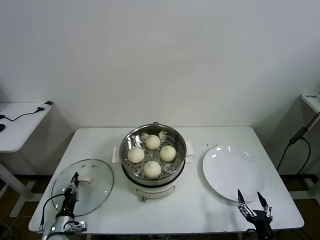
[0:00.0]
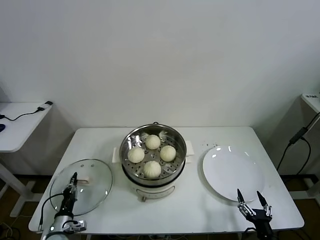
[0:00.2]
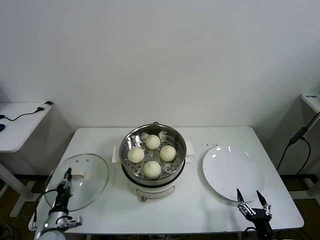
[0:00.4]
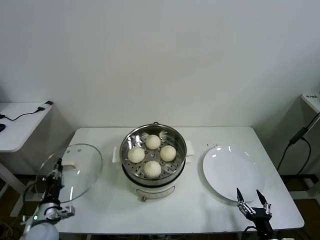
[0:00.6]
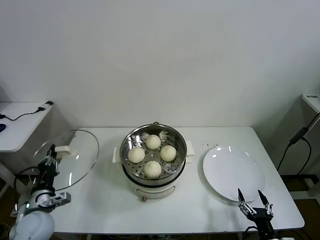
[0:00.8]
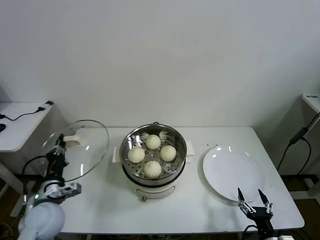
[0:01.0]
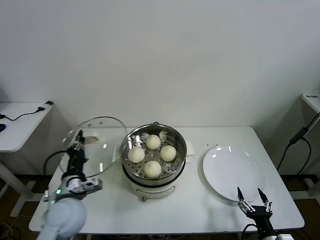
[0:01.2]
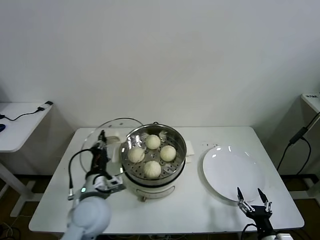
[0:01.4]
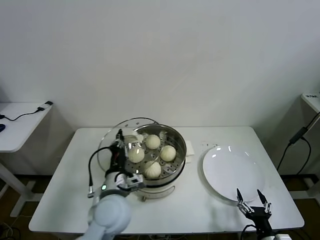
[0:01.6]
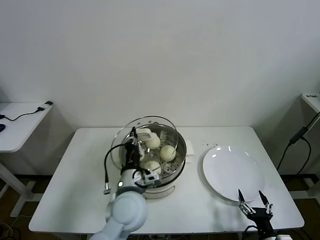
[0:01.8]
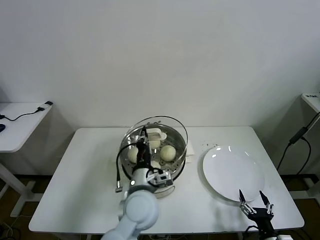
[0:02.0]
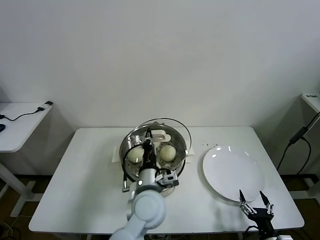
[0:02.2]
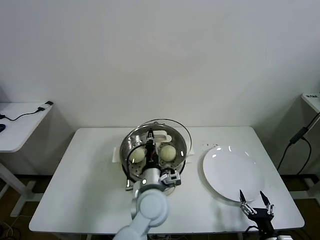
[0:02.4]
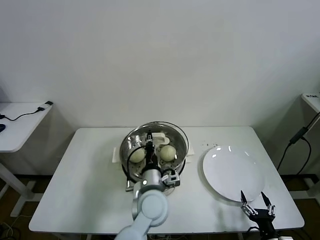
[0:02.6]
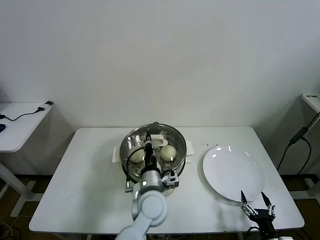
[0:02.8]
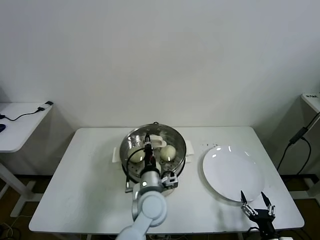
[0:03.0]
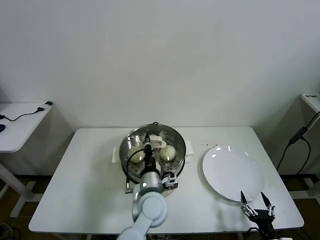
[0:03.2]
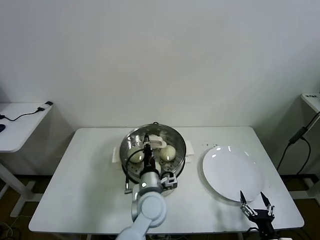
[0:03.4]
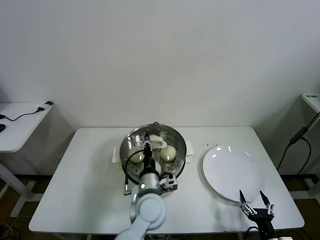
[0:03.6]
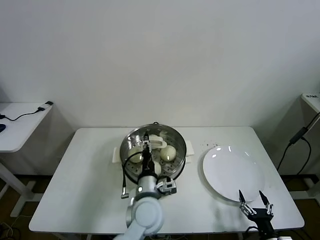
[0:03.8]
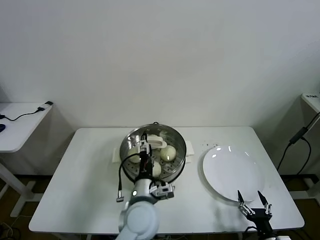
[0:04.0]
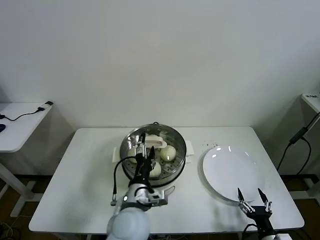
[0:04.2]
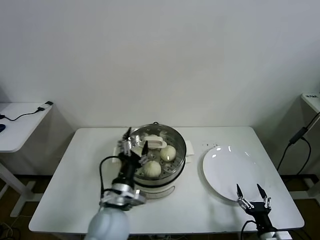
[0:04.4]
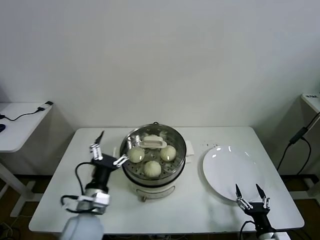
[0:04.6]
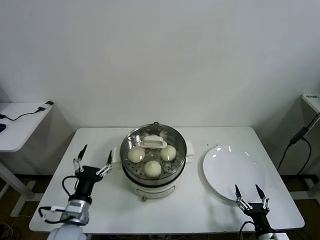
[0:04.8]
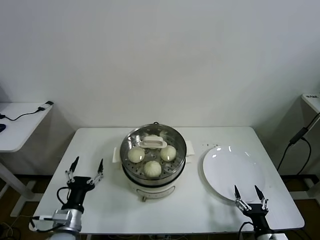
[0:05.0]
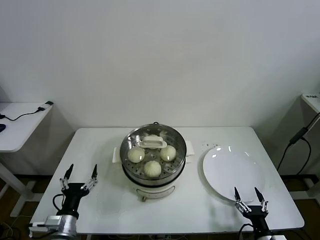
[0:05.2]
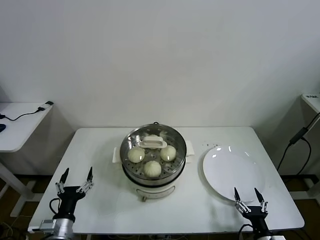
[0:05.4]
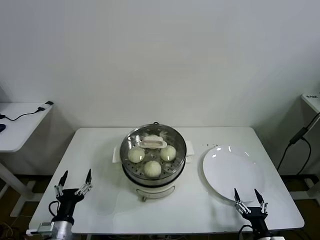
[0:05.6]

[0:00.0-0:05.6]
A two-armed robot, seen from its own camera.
Task of the whole recording: take steamed baozi put them in steamer then cover it.
Step, 0:00.2 to 0:03.4: Place the pot lid on the steamer with left gripper.
0:00.0 to 0:01.4: The left gripper is displaced upward and to the right by some 30 cm.
0:01.4 to 0:02.8: The left gripper travels to the right by approximately 20 cm.
0:02.8 to 0:04.2: The left gripper moves some 5 cm, and opens its fingers.
0:04.2 to 0:05.6: The left gripper is displaced to the left and downward by roughly 25 cm.
